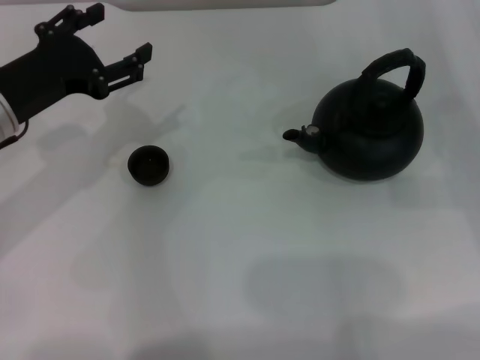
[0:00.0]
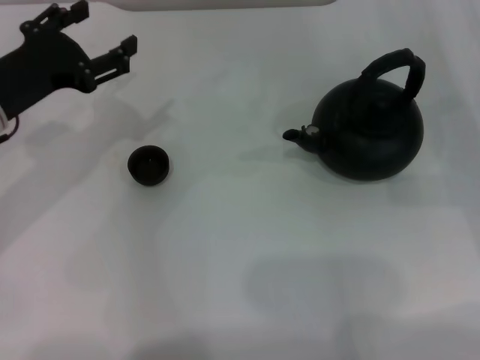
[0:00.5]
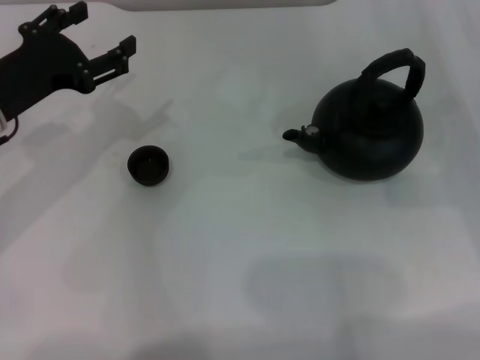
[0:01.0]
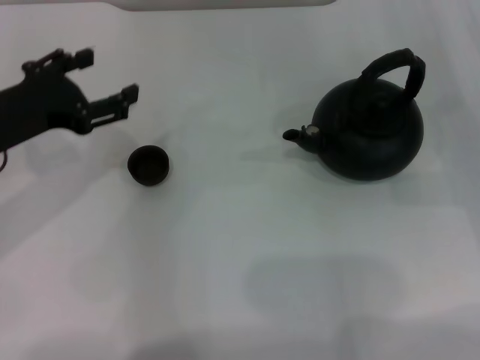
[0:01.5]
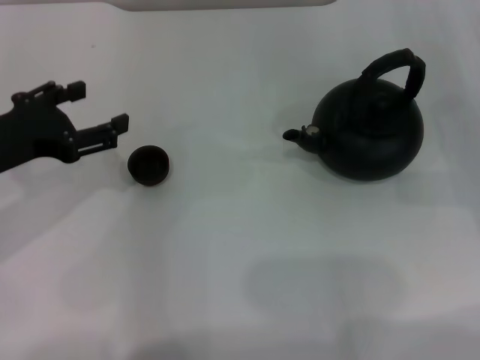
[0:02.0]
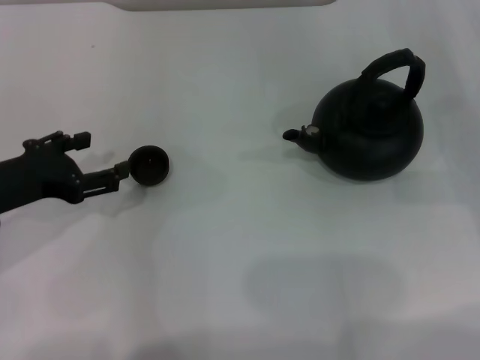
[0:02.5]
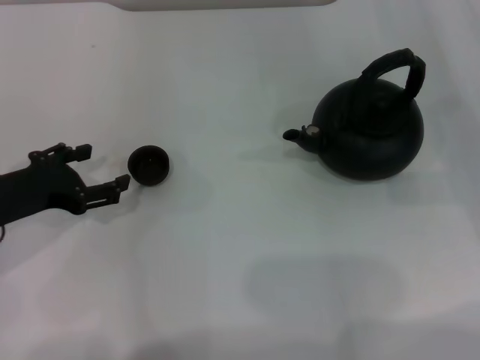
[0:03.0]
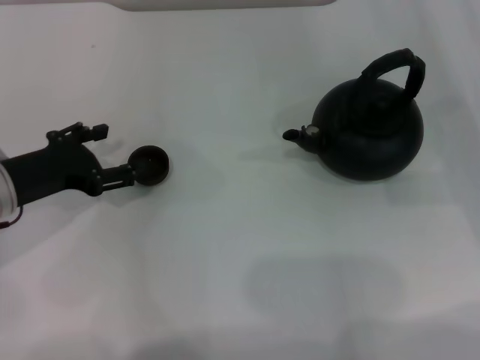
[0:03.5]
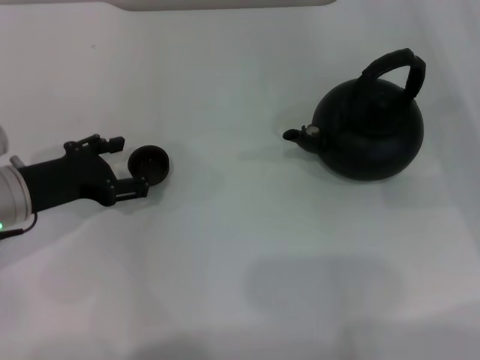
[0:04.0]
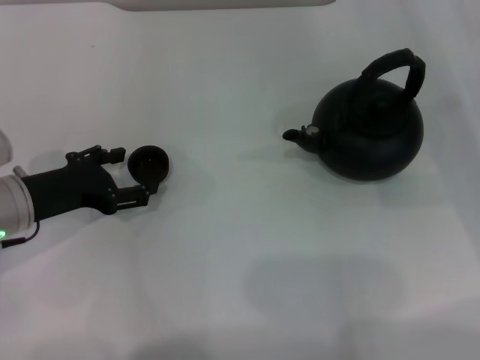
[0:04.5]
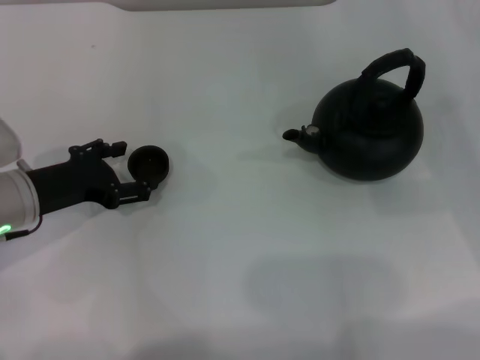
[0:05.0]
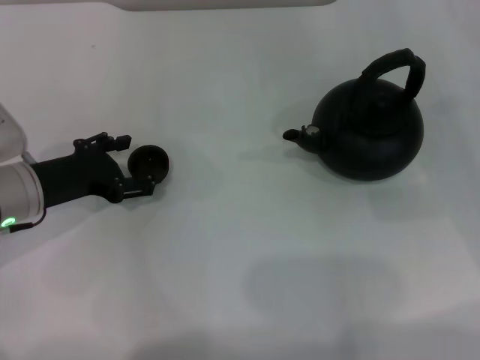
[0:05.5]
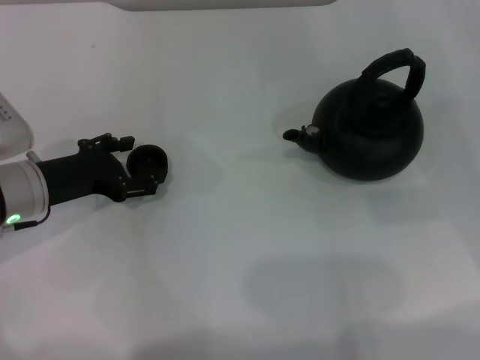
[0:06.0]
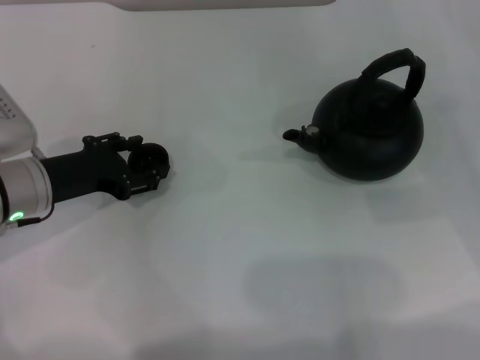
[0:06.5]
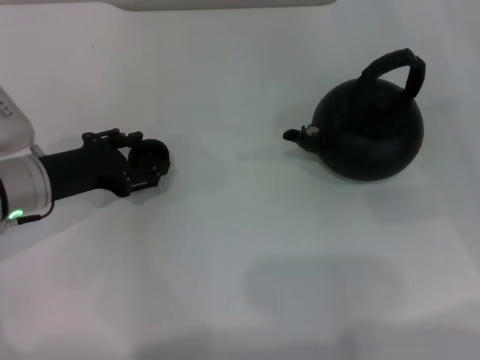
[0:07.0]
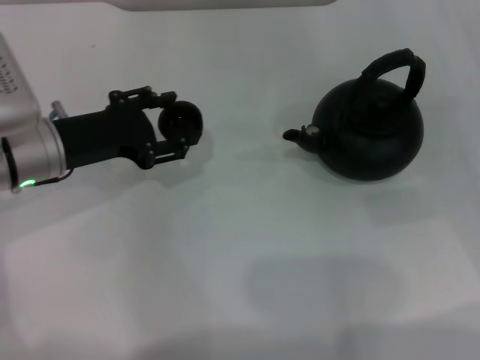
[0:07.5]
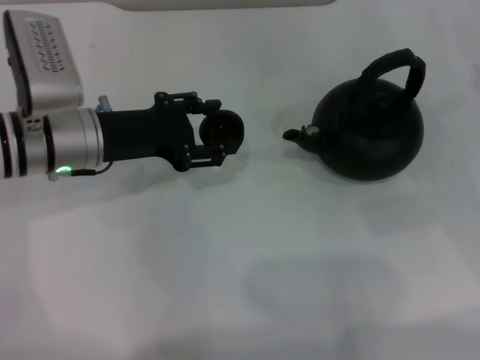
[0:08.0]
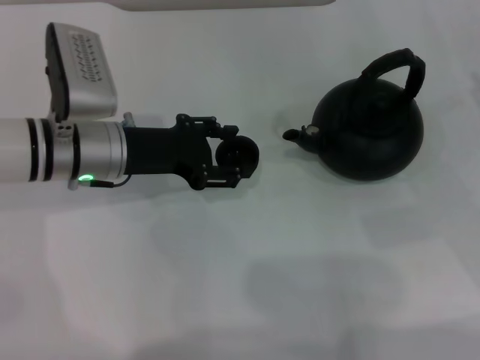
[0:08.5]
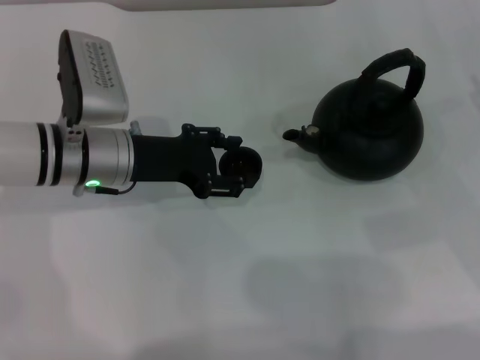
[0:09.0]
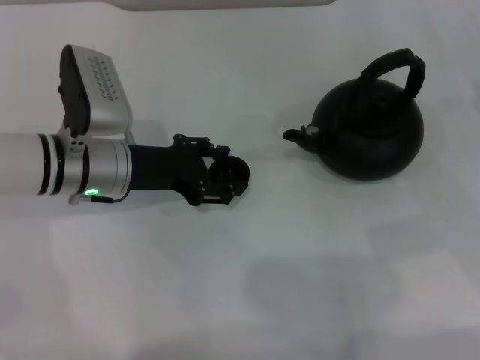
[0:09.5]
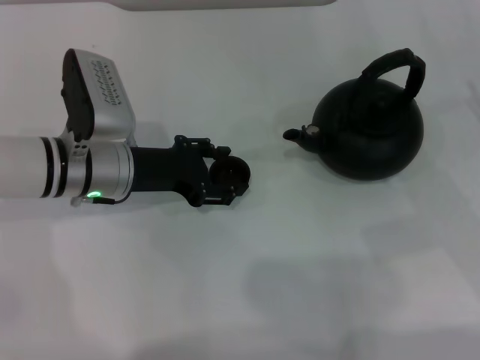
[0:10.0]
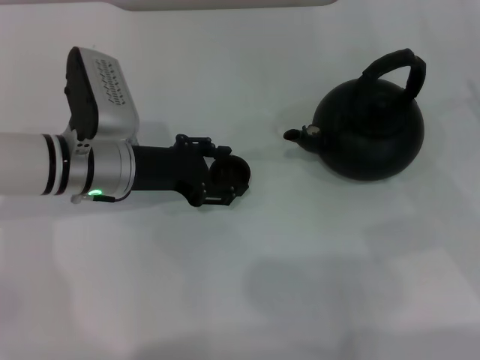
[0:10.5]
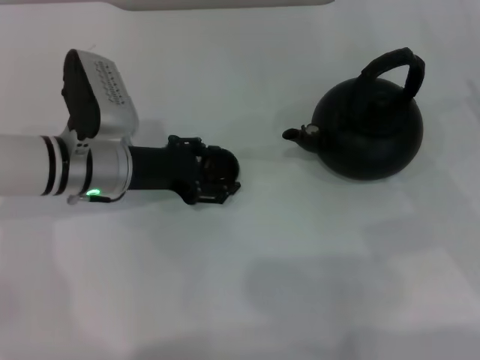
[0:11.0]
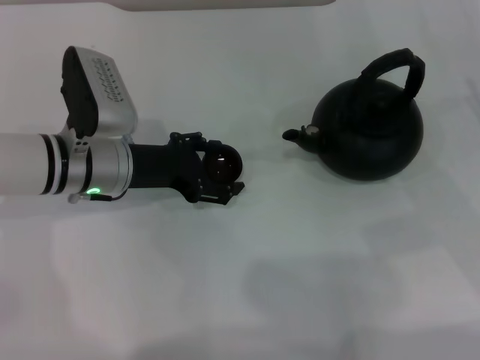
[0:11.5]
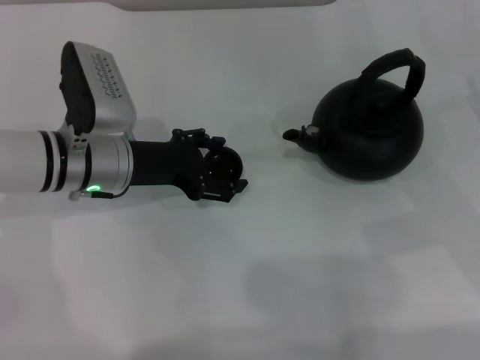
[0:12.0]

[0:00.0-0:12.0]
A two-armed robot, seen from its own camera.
Task of the whole recording: Grasp the handle of the teapot with one hand and pour tea into the teacup.
Step, 0:00.0 to 0:07.0: Pick up the teacup with the left gripper.
0:00.0 to 0:02.0: The left gripper moves some 5 cm.
0:02.0 to 0:04.0: The left gripper goes some 5 cm downward.
0:04.0 to 0:06.0: There are only small adjustments of the grippers.
0:06.0 to 0:08.0: The left gripper shifts approximately 5 cm to the right, and closes.
0:08.0 to 0:10.0: There are only small adjustments of the grippers.
0:10.0 to 0:12.0: The left gripper opens up.

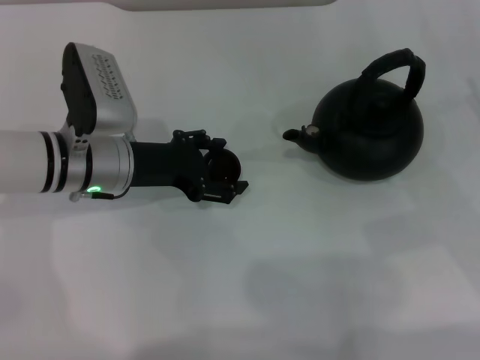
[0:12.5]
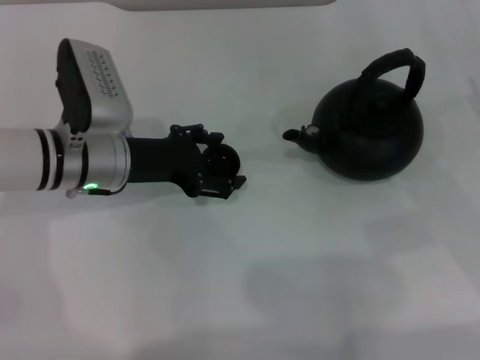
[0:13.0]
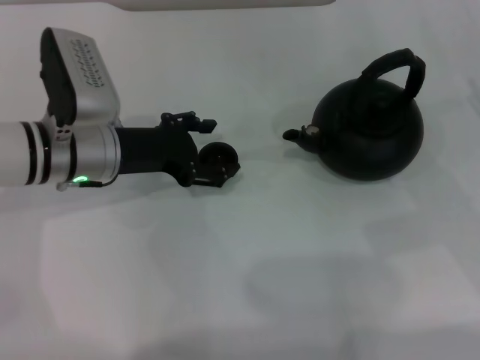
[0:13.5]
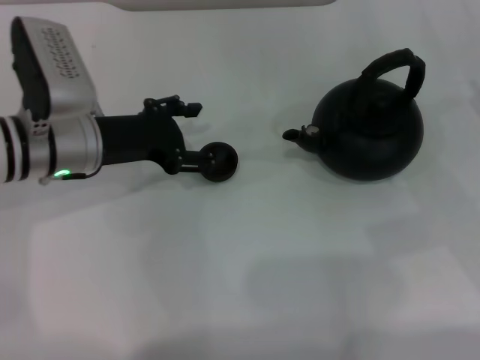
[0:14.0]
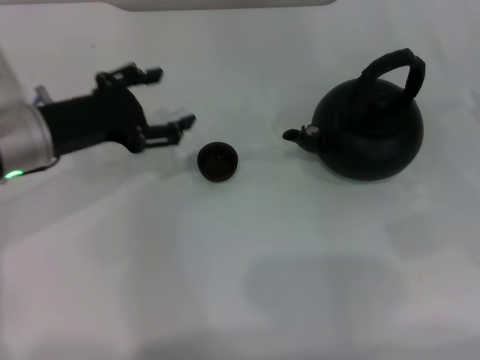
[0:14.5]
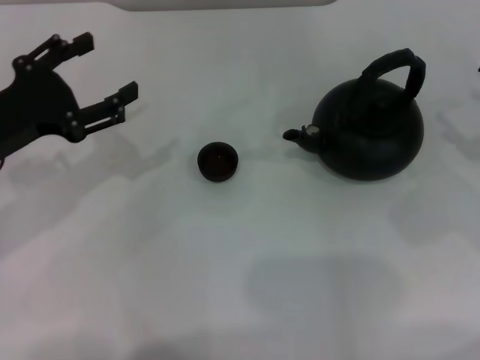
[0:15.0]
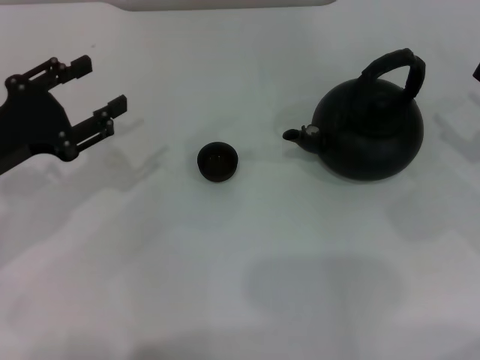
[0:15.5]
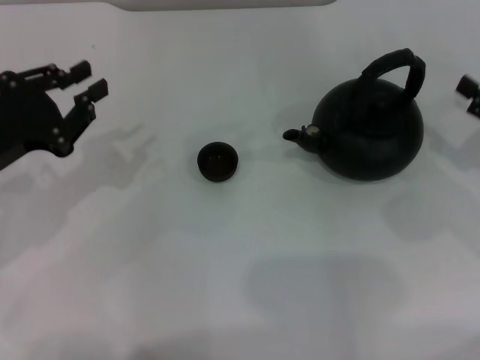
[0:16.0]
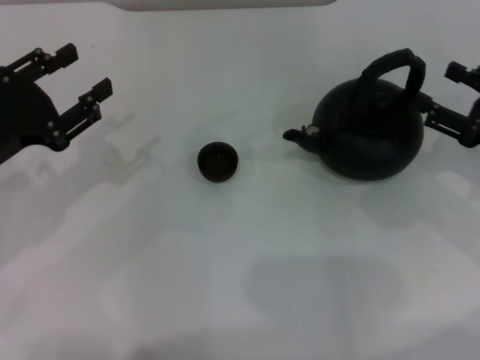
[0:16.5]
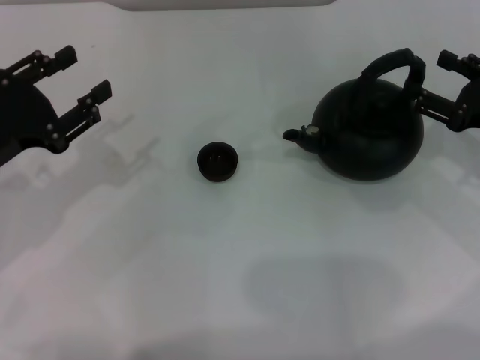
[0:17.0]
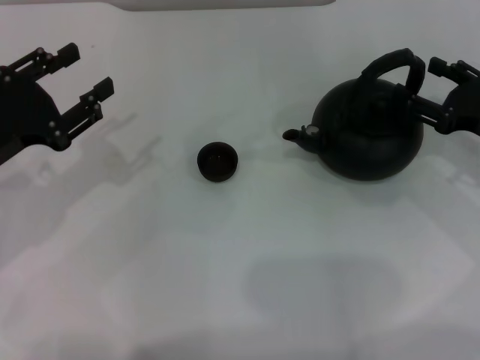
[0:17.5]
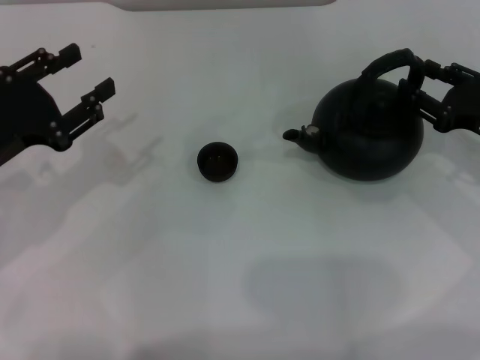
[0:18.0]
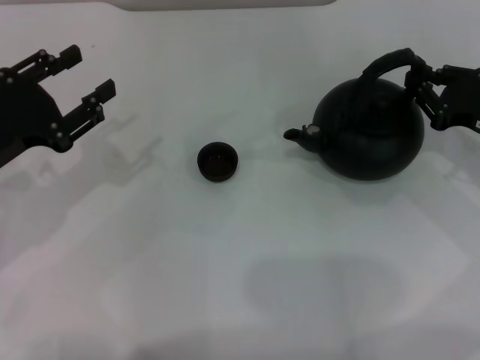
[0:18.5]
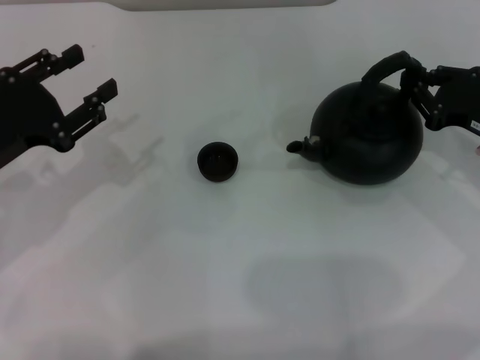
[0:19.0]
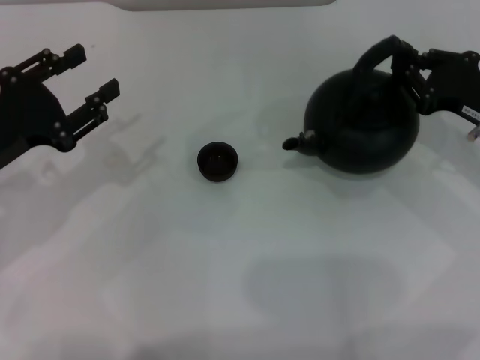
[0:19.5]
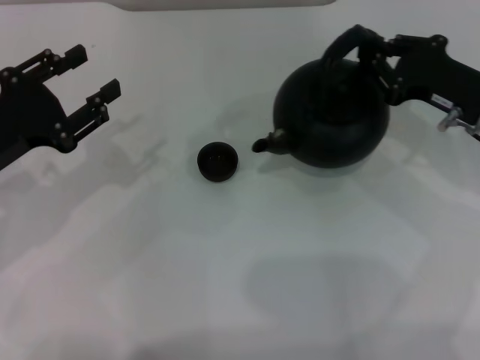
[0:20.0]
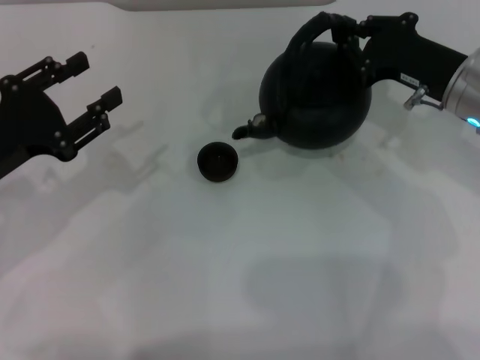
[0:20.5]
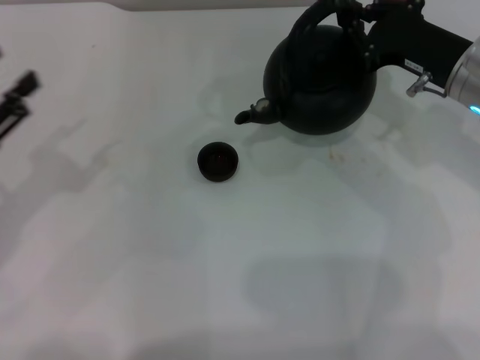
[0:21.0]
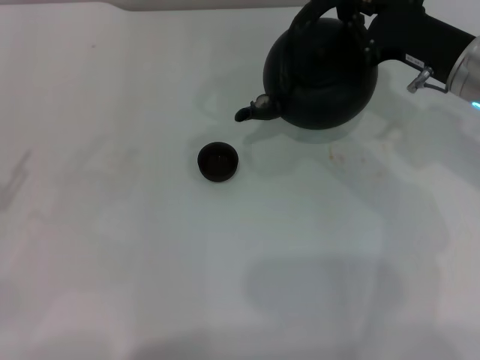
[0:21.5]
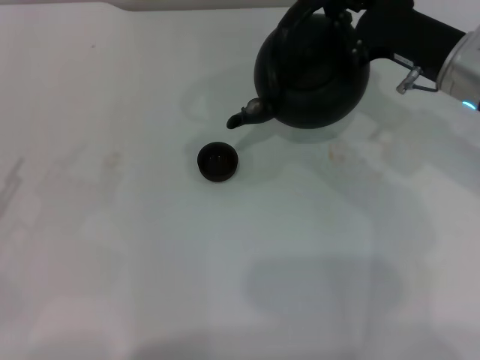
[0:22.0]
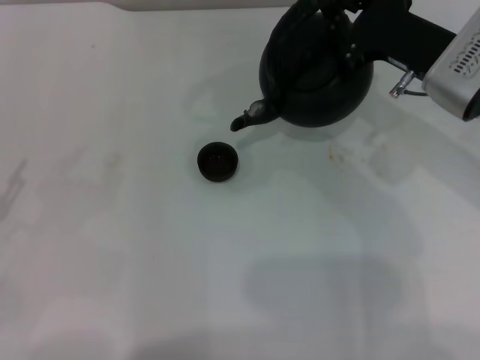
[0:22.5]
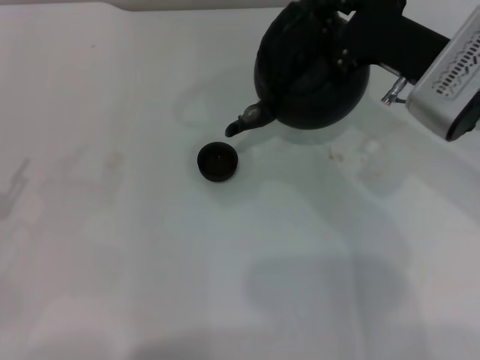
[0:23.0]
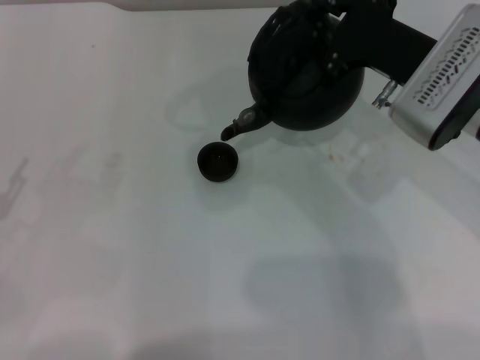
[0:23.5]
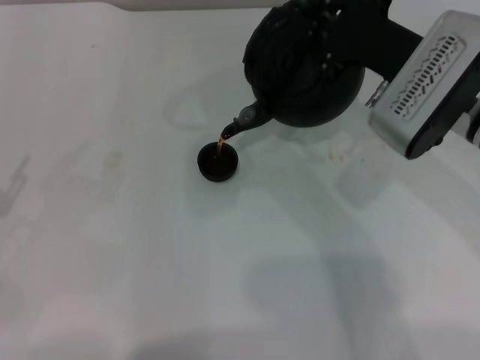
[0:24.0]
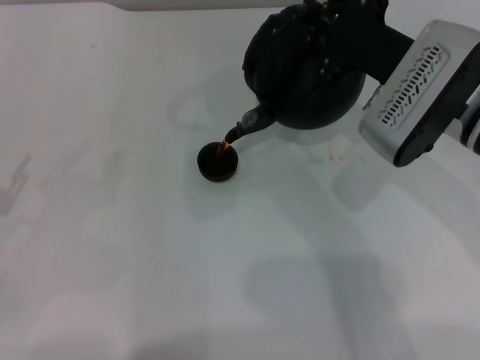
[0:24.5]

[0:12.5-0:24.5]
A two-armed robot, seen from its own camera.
Task of the whole recording: Grasp the handle of the teapot with one hand and pour tea into the teacup.
Step, 0:14.5 to 0:19.5: Pick up the teapot with the right gripper.
0:12.5 to 0:14.5: The left gripper moves to the left and upward, about 10 cm.
0:14.5 to 0:16.5: The left gripper moves to the left and backward, roughly 10 cm, and closes up.
0:16.5 to 0:18.5: The right gripper closes.
0:18.5 to 0:20.5: The right gripper goes about 10 cm to the left.
0:20.5 to 0:22.5: The left gripper travels to the left and backward by approximately 10 cm.
0:22.5 to 0:24.5: The grippers move only a little.

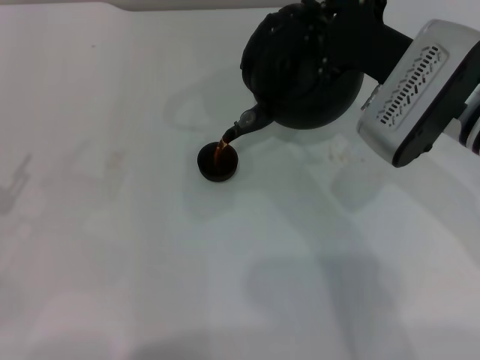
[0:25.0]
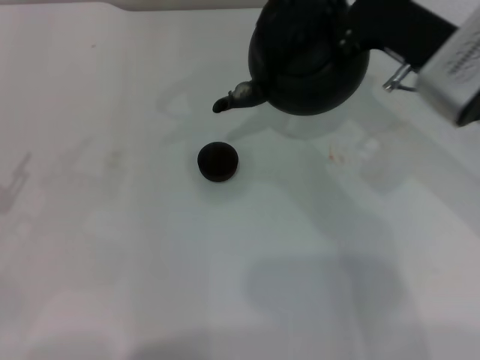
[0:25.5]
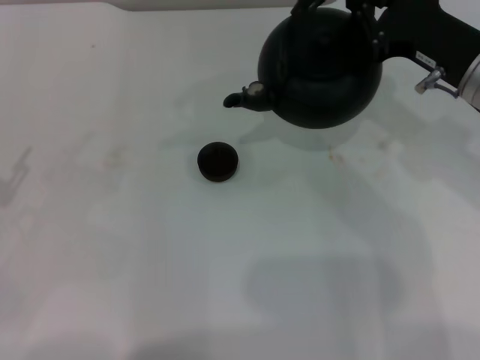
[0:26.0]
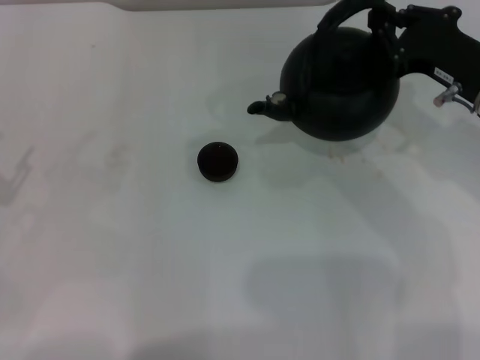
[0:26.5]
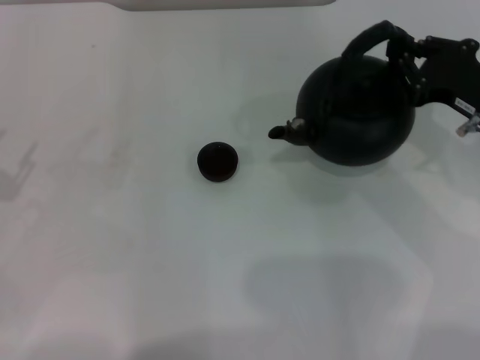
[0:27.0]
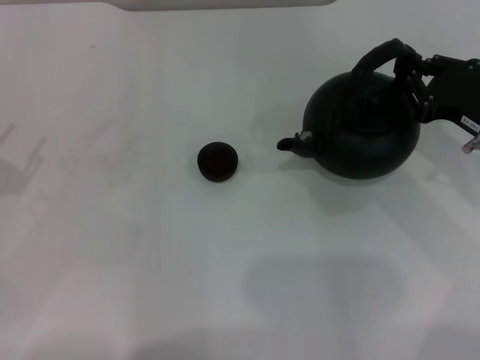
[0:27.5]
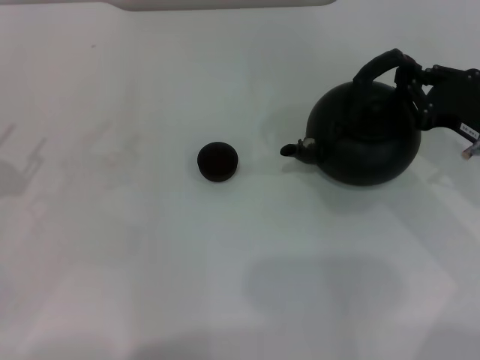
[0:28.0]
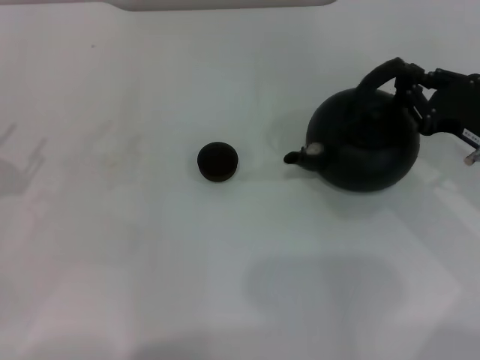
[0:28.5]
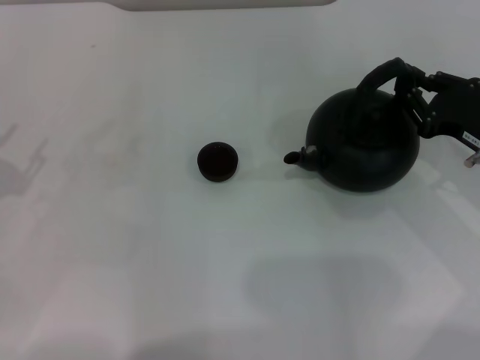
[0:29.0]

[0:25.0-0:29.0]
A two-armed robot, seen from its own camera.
Task of the whole recording: Grasp the handle of the teapot with one hand and pour tea into the teacup.
0:25.0 to 0:27.0: The right gripper moves to the right, about 10 cm.
0:27.0 to 0:29.0: There are only small adjustments of the grippers.
